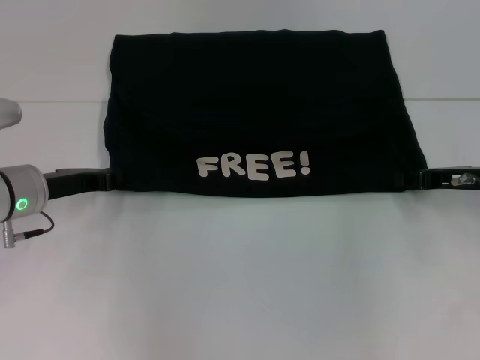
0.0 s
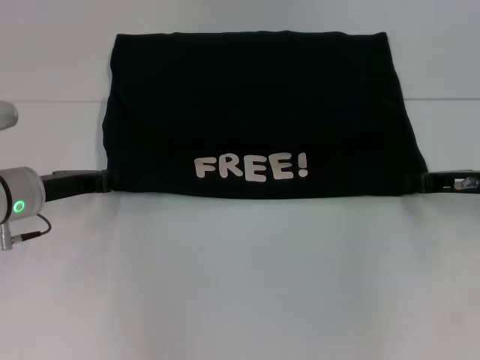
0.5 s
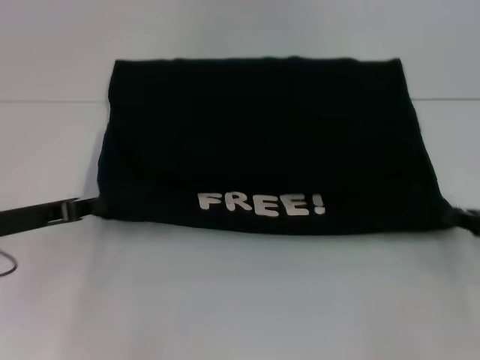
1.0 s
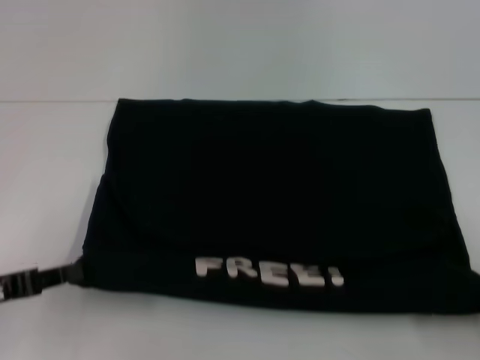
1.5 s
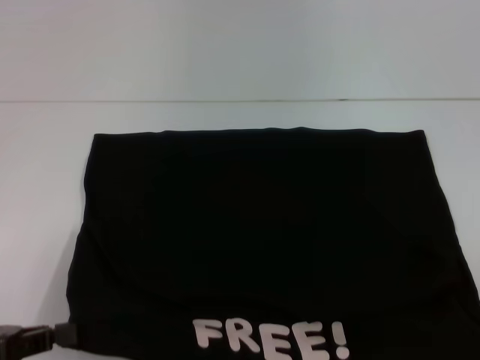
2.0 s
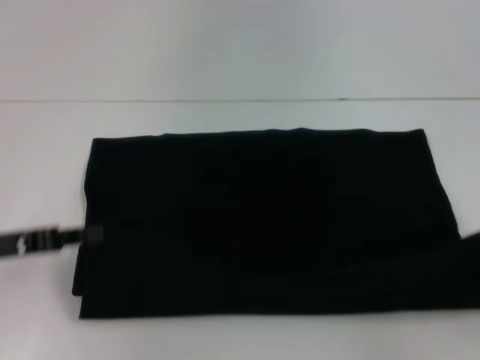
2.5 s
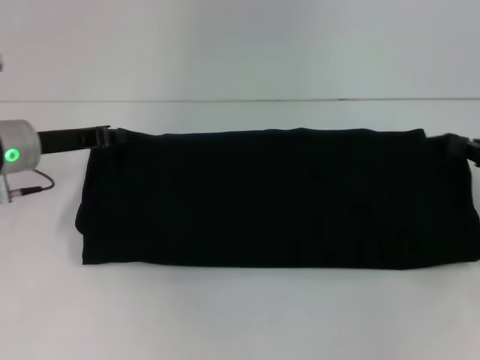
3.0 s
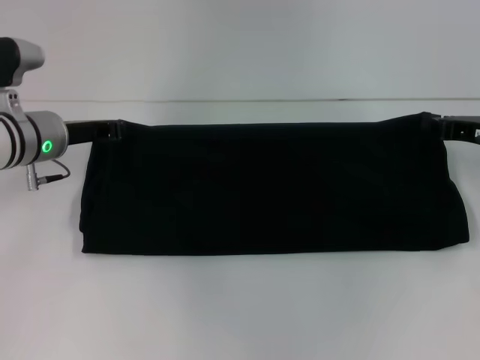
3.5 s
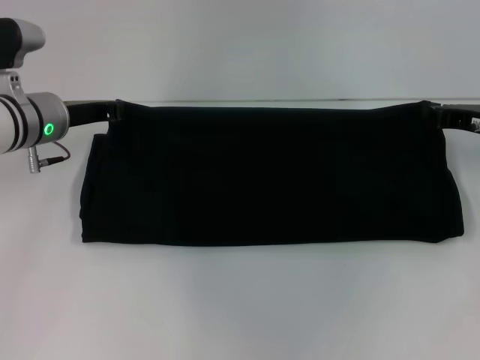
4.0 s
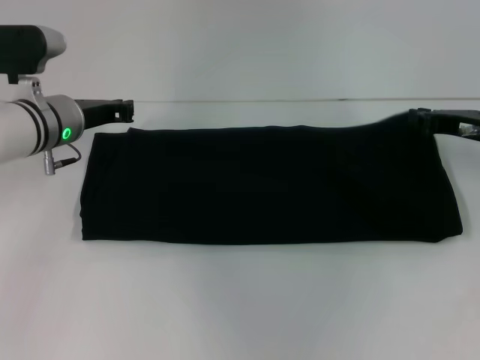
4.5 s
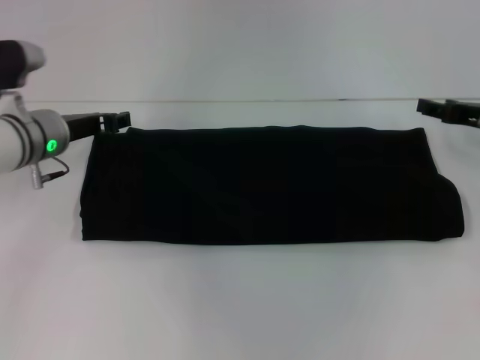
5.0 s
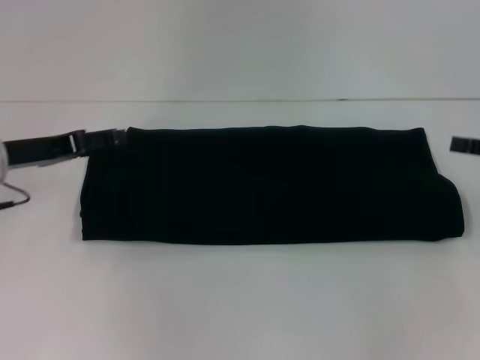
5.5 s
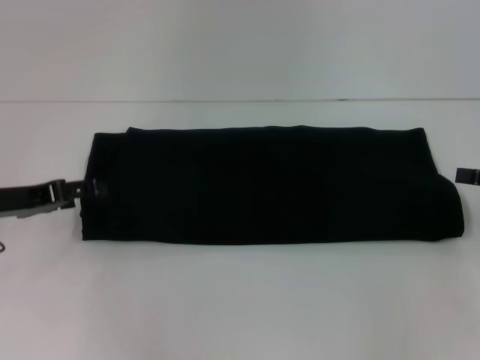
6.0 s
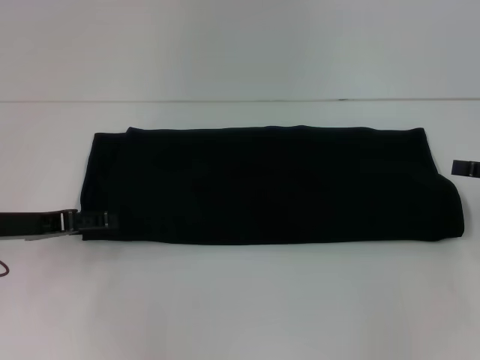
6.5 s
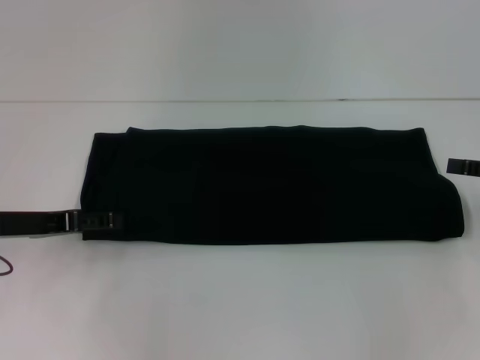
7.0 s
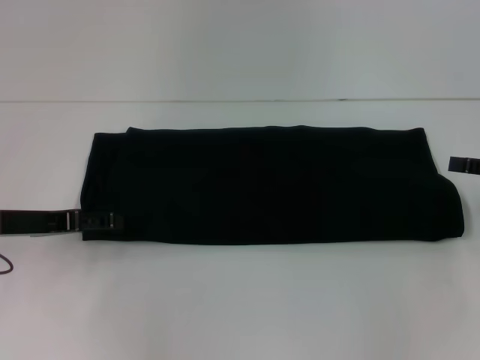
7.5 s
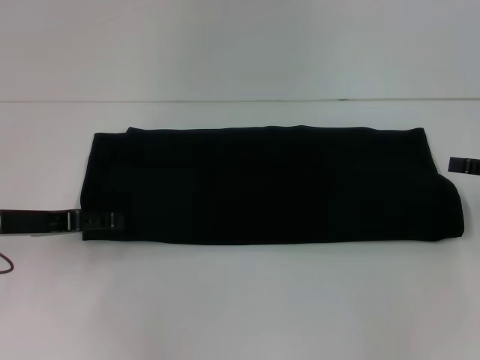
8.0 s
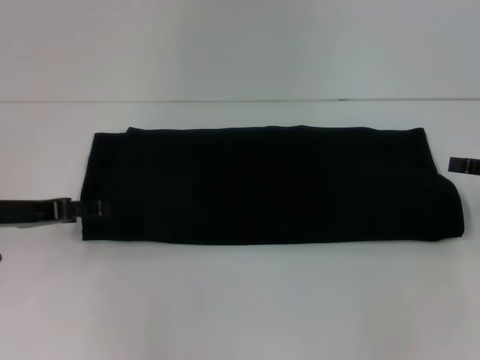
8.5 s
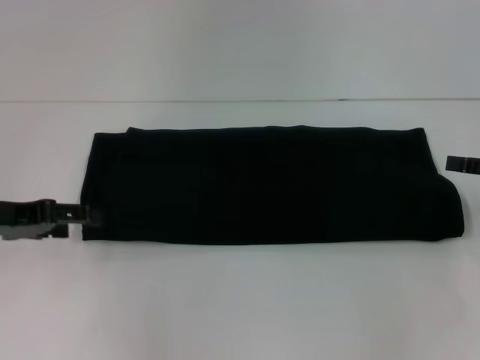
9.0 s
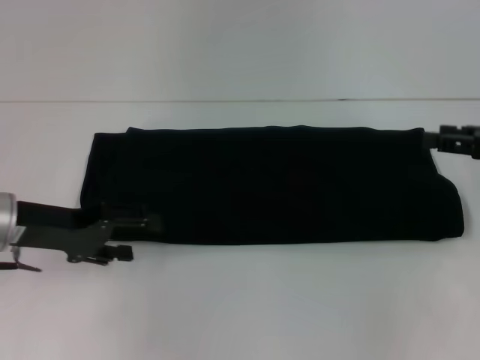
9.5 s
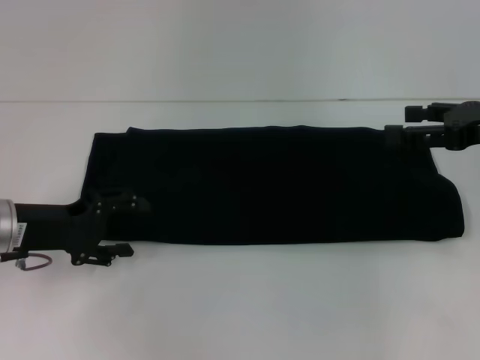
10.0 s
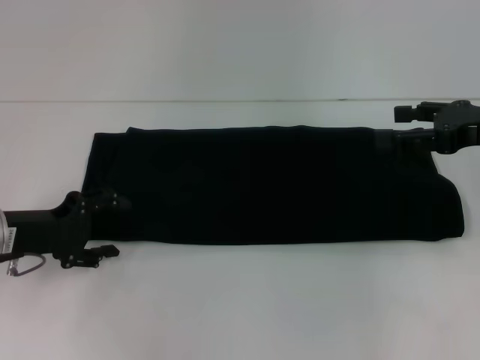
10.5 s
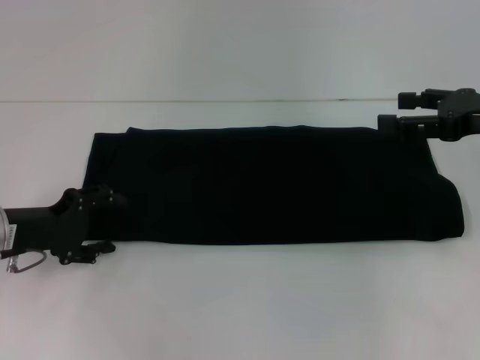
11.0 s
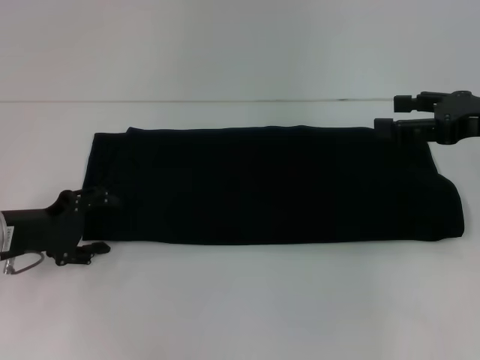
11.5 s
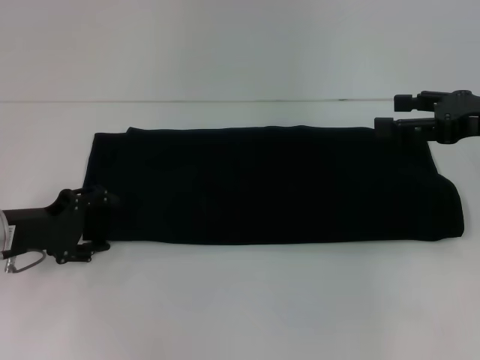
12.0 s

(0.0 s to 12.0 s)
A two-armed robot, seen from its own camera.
Step, 2.0 s - 4.5 s: Fold the clothes with your right hand.
0.0 s - 2.0 s: The left gripper is displaced backward by approximately 20 cm, while the right gripper shifts approximately 25 cm backward and to the right, and closes its fingers.
2.0 s - 4.0 s: The two grippers go some 25 cm forward.
4.0 s - 6.0 s: The right gripper shifts approximately 10 cm backward and to the right, and opens up, while the left gripper goes some 15 cm backward and to the left, and opens up.
6.0 s - 8.0 s: The grippers make only small movements.
8.0 s - 10.0 s: The right gripper goes roughly 10 cm to the left and upward.
10.0 s - 12.0 s: The grippers stay close to where they were, moving slightly.

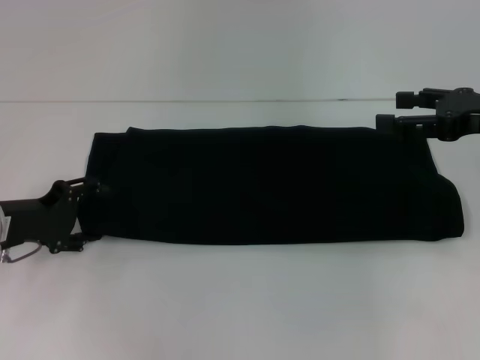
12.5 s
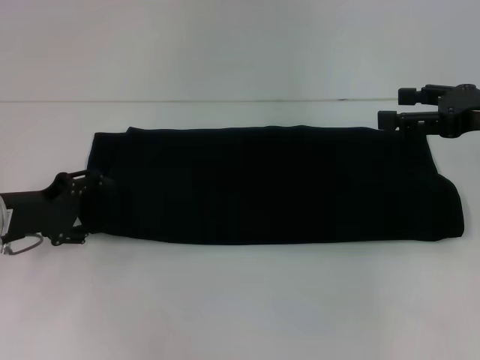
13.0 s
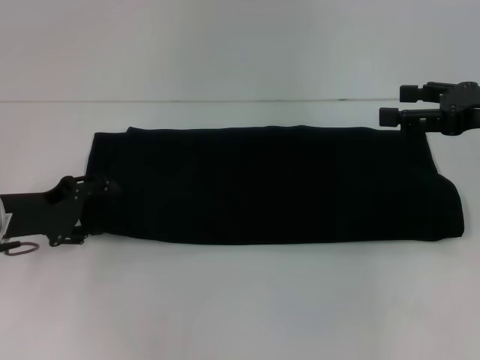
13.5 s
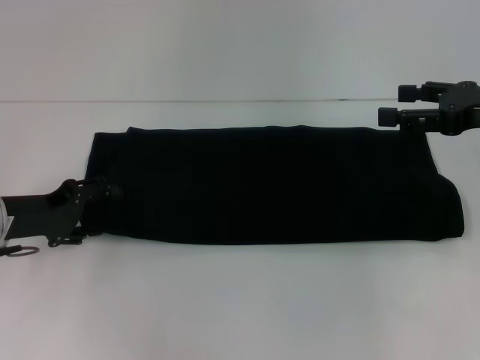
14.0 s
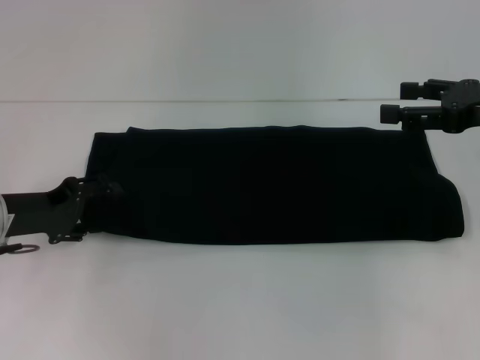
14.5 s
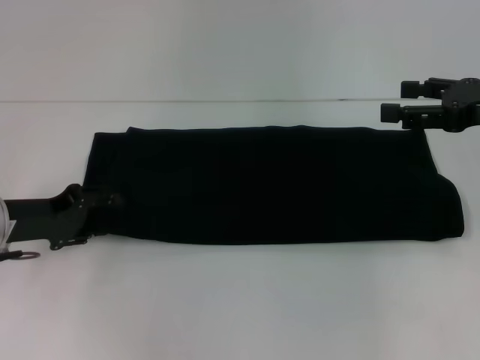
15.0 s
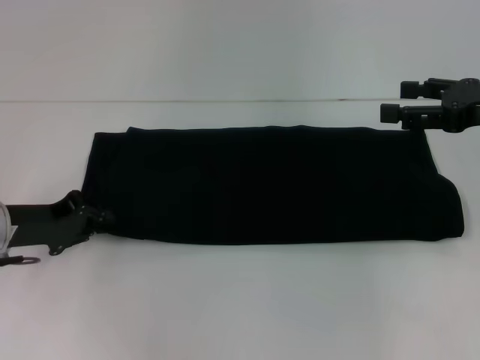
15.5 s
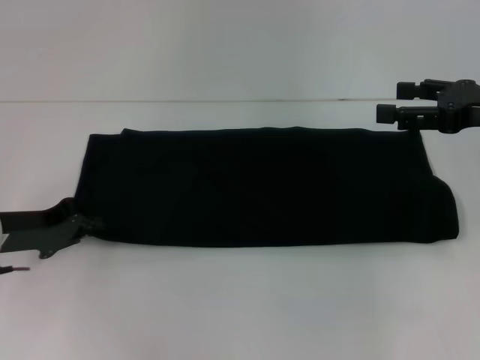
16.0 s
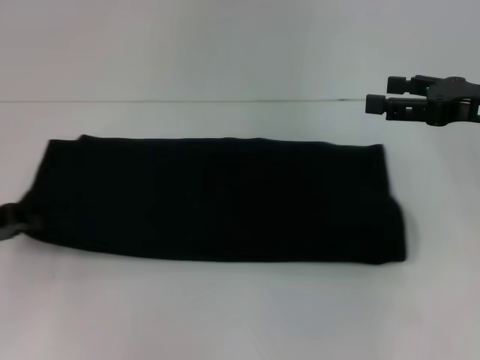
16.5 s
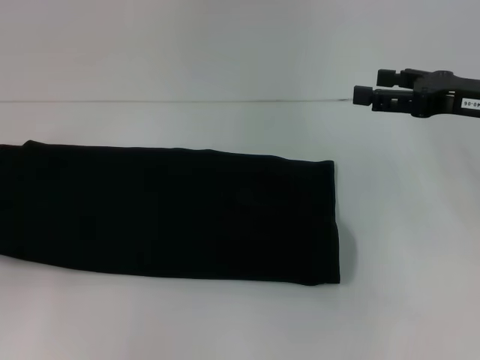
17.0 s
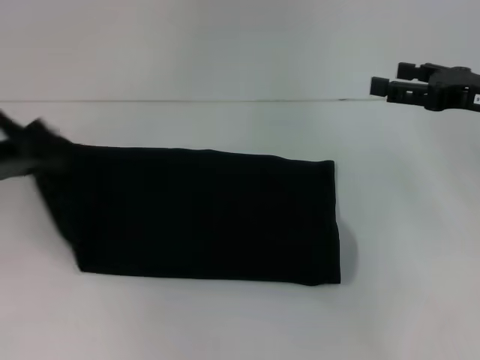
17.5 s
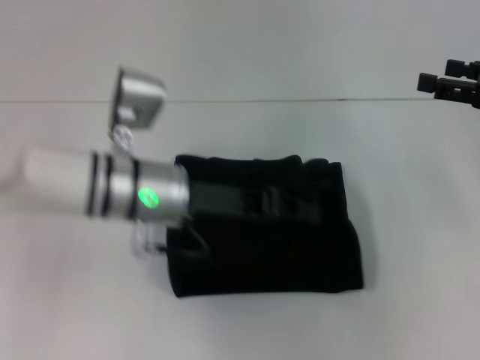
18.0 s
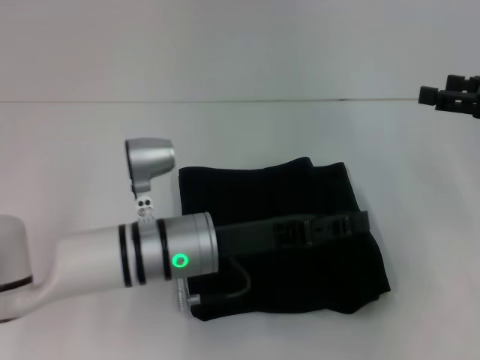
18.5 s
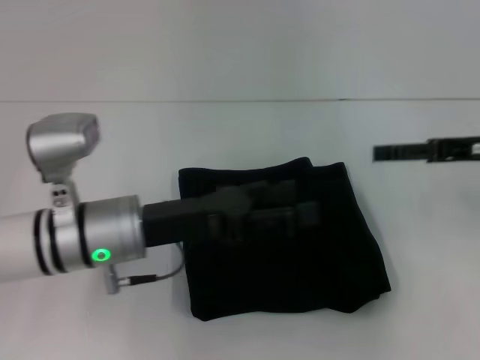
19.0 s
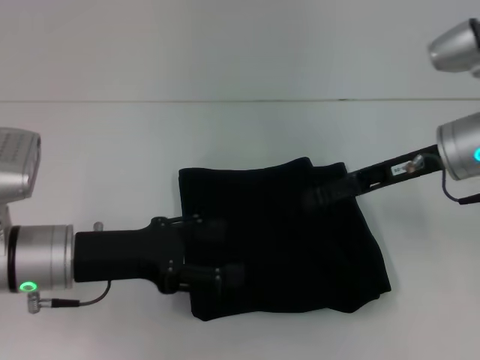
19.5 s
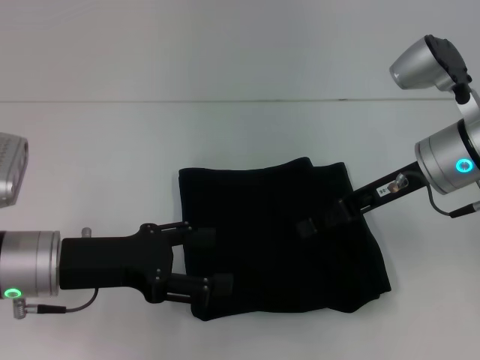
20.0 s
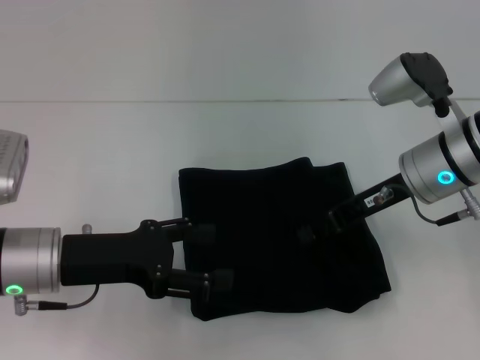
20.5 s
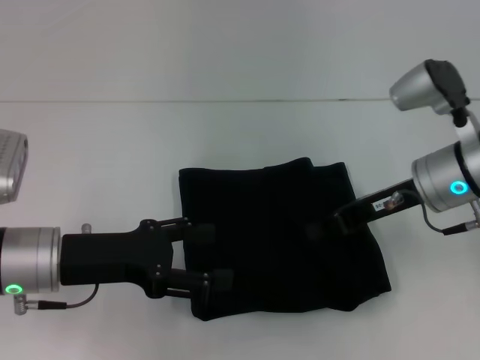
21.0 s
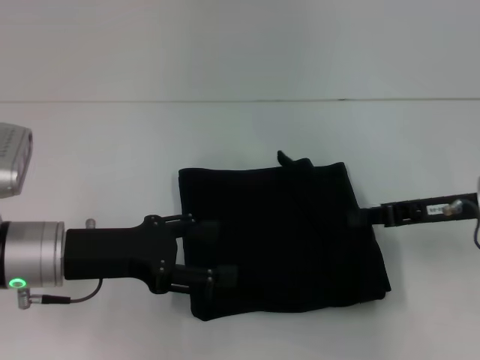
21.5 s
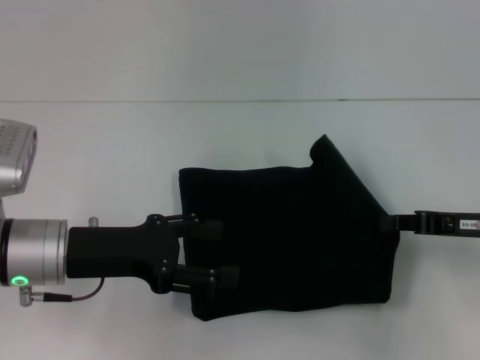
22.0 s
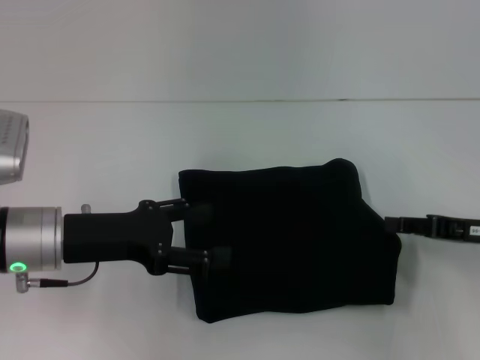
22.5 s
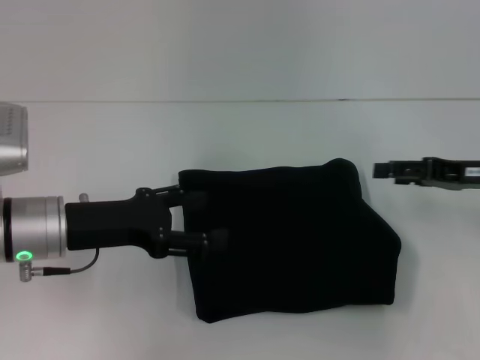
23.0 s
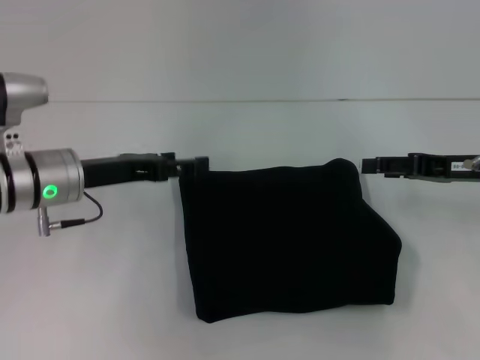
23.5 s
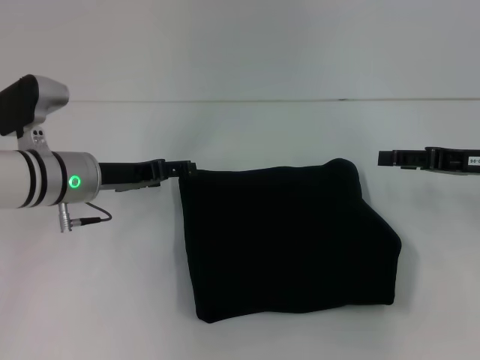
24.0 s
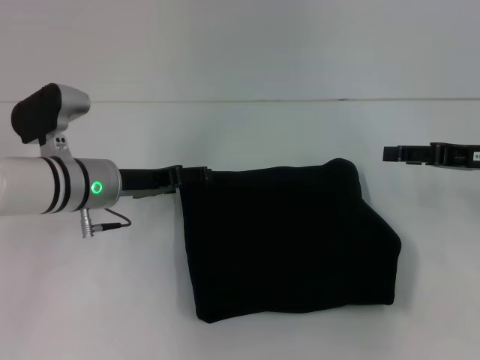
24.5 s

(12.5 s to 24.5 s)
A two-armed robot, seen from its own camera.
Step, 12.5 s - 18.0 s: Fold the clothes with your left hand.
12.5 s - 14.5 s: The grippers move only a little.
14.5 s - 16.5 s: The left gripper heads to the left, covering about 5 cm, and closes.
16.5 s - 18.5 s: The left gripper goes some 25 cm to the right.
18.5 s - 20.5 s: The grippers both shift to the left by about 15 cm. The left gripper opens its fingers. The right gripper closes up.
20.5 s - 22.5 s: The right gripper goes some 15 cm to the right, backward and downward, and closes.
22.5 s - 24.5 s: The left gripper goes roughly 10 cm forward; the right gripper is displaced forward by some 5 cm, and opens.

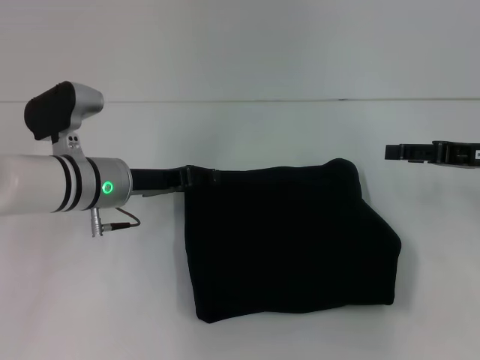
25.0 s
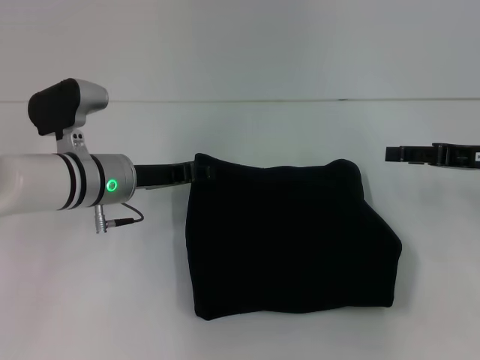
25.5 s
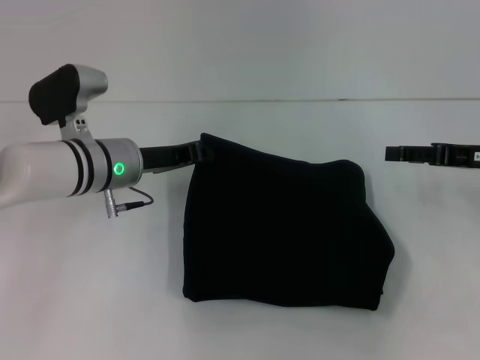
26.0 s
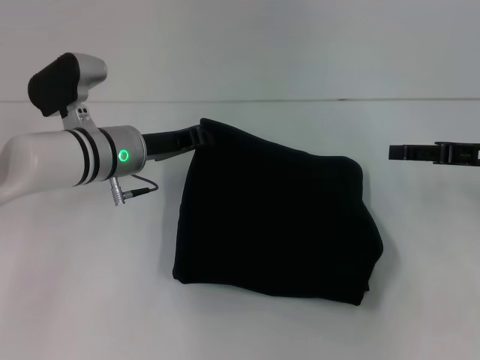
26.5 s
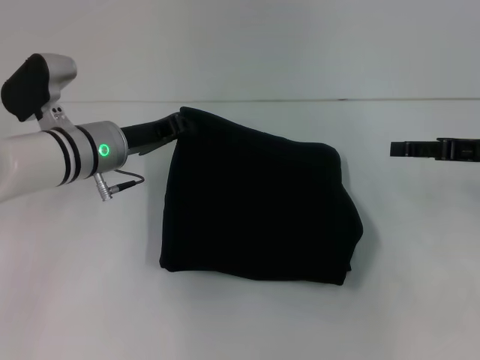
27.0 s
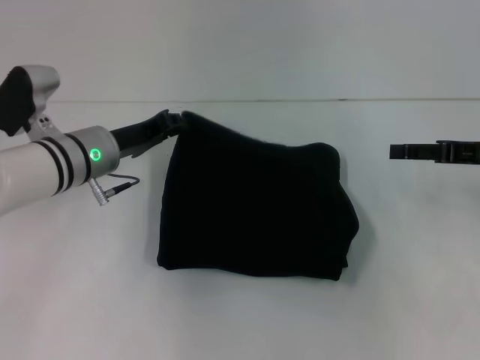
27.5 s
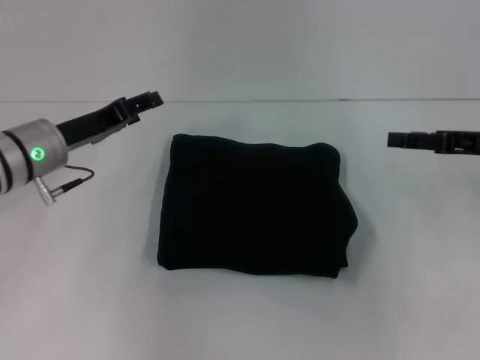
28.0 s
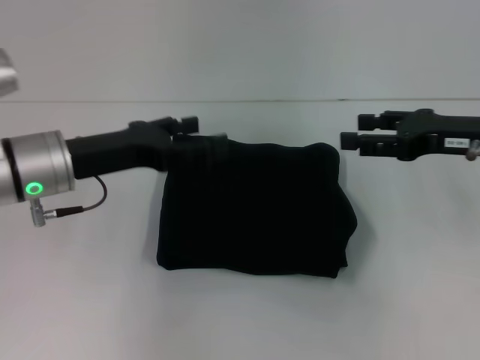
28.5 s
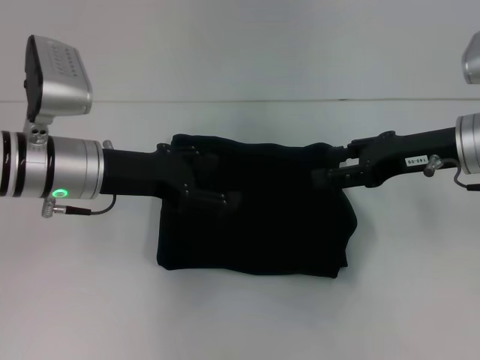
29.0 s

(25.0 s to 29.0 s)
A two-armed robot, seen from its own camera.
25.0 s - 27.0 s: The left gripper closes up.
27.0 s - 29.0 s: The left gripper travels backward by approximately 5 cm, and opens its fingers; the right gripper goes roughly 10 cm to the left.
